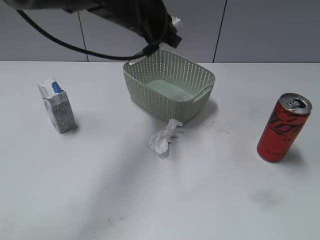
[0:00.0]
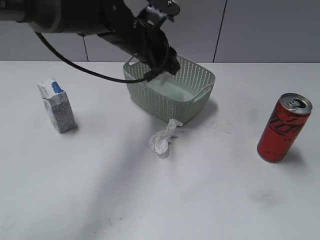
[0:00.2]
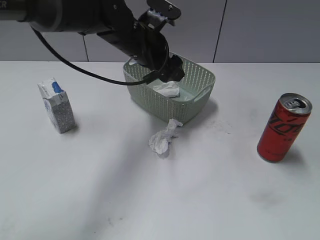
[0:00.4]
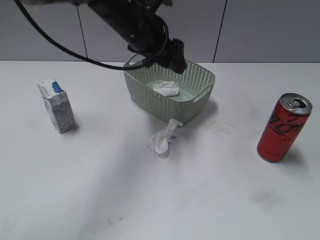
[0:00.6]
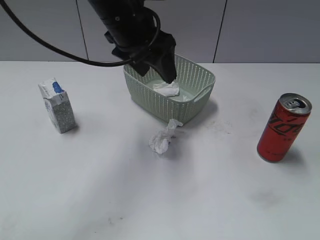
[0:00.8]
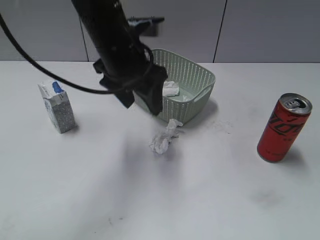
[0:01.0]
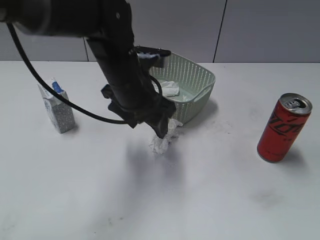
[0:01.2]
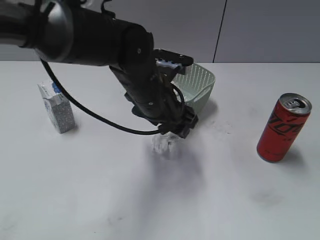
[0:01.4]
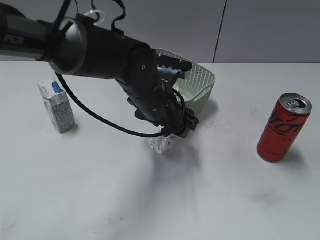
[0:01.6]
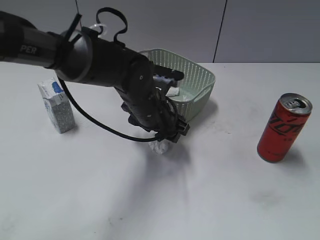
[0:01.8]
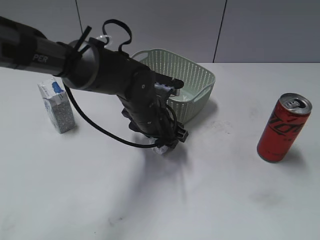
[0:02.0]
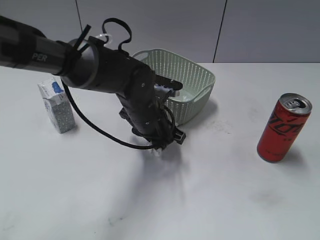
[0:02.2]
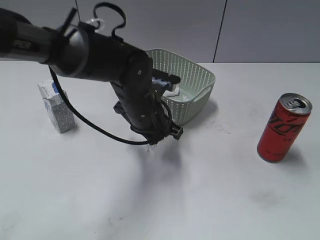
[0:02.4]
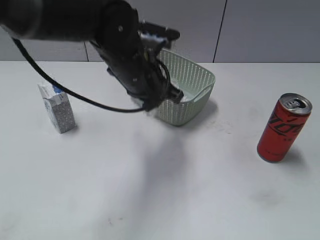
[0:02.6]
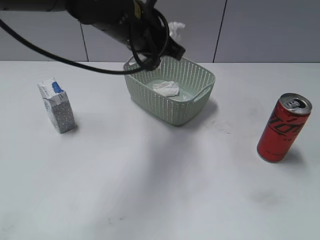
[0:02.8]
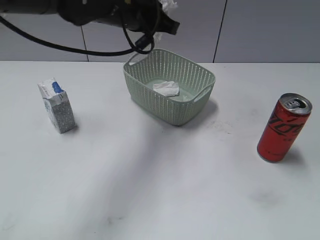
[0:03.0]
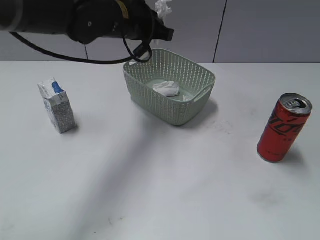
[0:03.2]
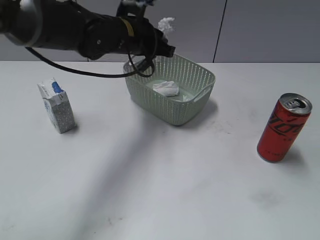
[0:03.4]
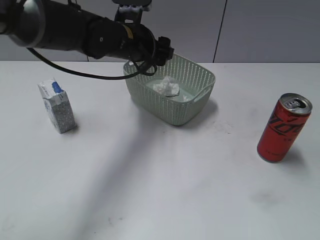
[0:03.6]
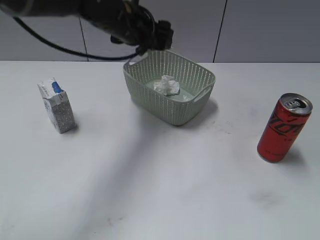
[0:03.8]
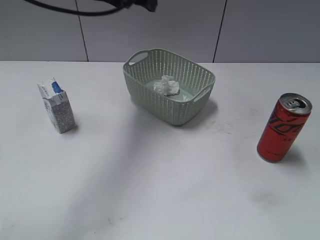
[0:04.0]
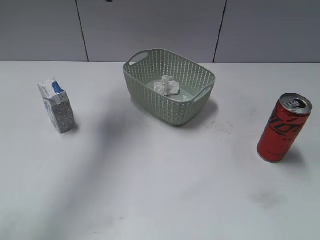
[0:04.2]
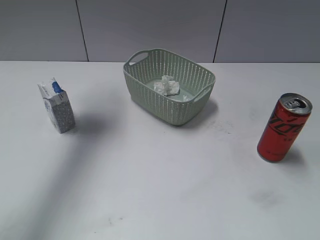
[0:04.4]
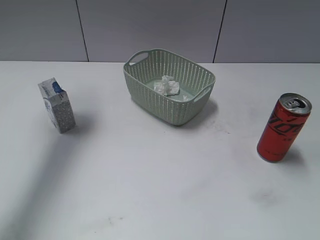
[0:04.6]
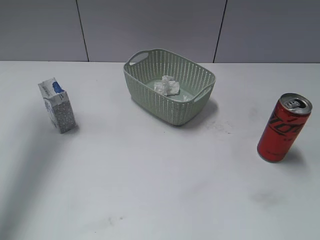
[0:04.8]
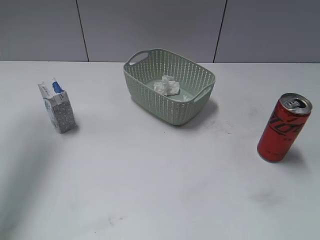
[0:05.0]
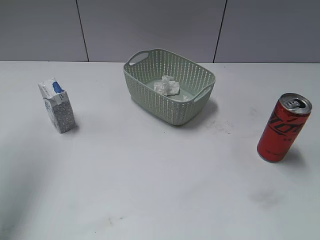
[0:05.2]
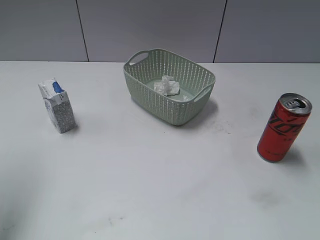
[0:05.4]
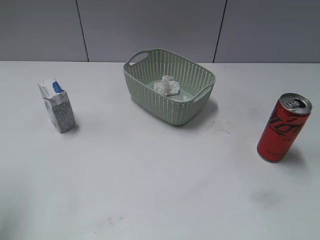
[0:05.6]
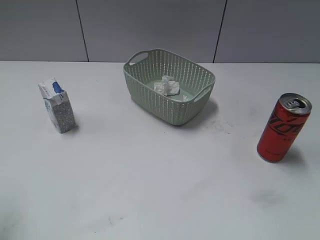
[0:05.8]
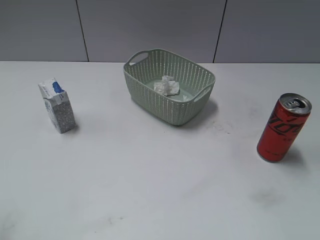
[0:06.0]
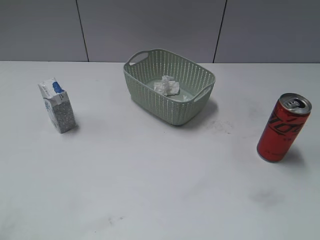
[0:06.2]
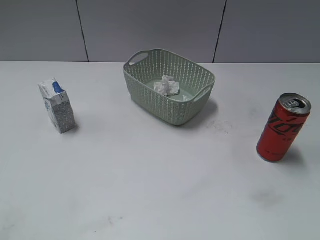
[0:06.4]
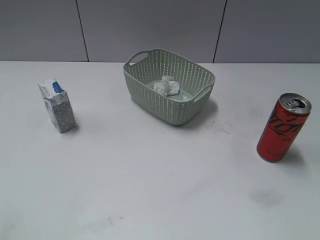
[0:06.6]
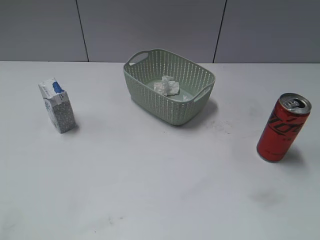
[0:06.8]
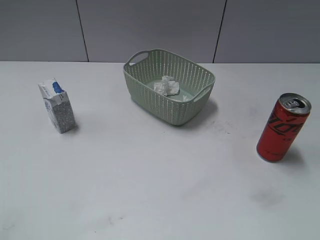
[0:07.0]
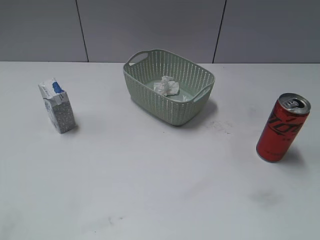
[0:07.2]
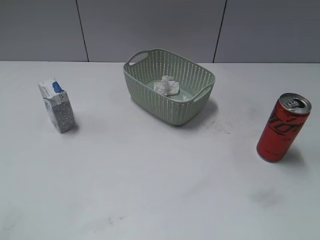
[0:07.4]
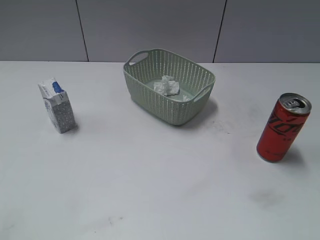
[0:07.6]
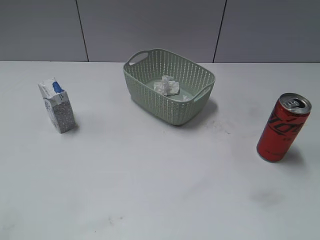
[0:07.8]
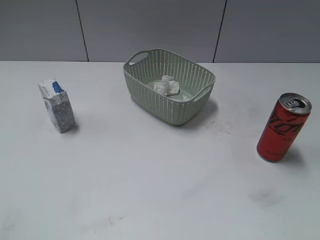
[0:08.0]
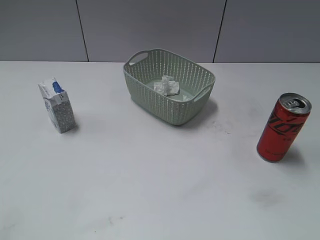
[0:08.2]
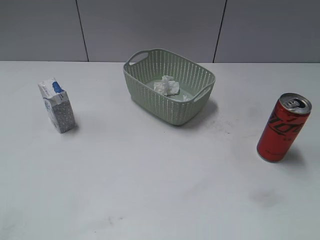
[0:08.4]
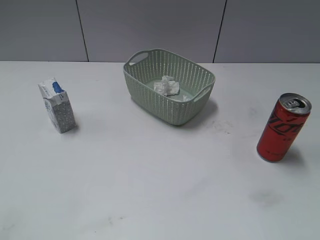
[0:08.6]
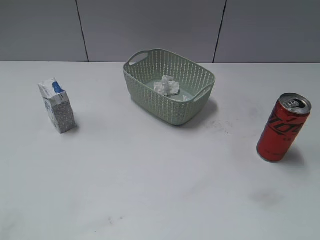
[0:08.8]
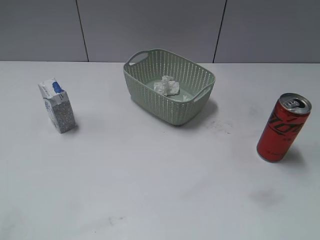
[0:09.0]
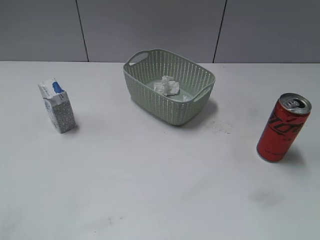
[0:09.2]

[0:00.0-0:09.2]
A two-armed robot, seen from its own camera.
Step, 0:00.6 to 0:02.4: Grasp the waste paper with left gripper.
Step, 0:02.6 to 0:03.8: Place the waste paper in the basket with left gripper.
0:00.0 to 0:01.6: The left gripper moves up and down over about 15 cm, changing direction 2 times, and opens up.
0:01.6 to 0:03.0: The left gripper travels upward by approximately 10 cm, and closes.
0:03.0 to 0:04.6: The left gripper travels to the left and upward by approximately 20 cm, and opens.
0:04.6 to 0:06.2: The left gripper goes about 35 cm backward.
0:07.6 to 0:09.2: Neither gripper changes place.
